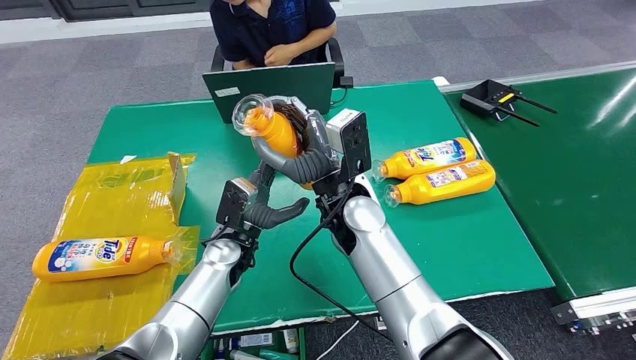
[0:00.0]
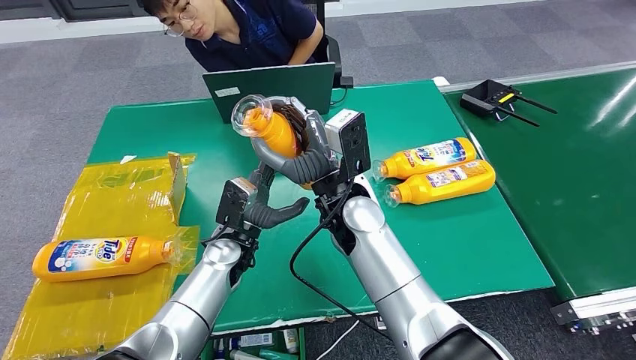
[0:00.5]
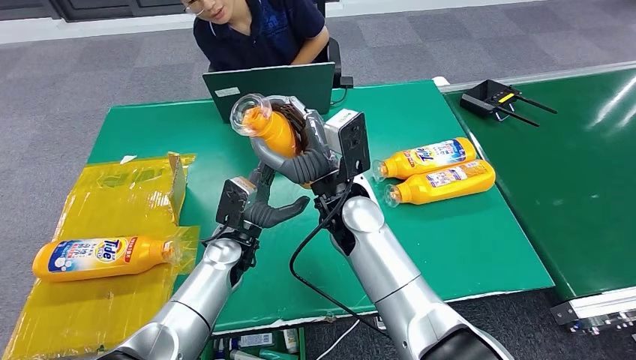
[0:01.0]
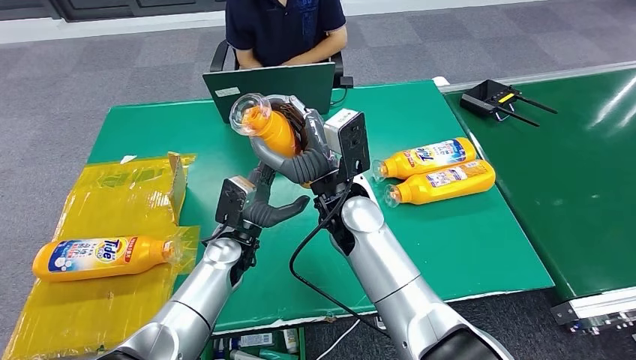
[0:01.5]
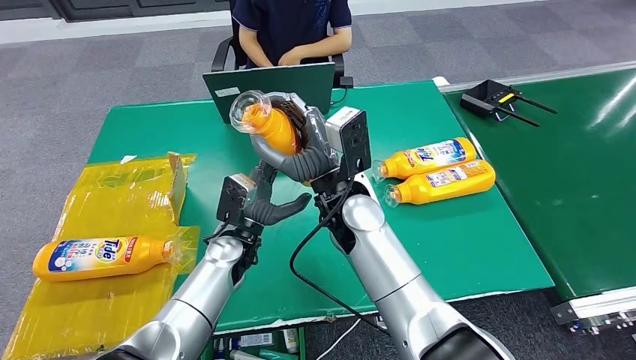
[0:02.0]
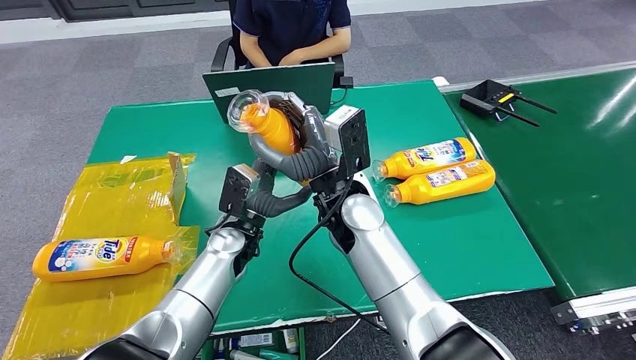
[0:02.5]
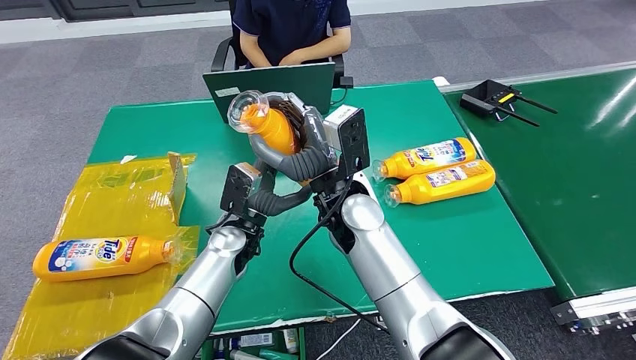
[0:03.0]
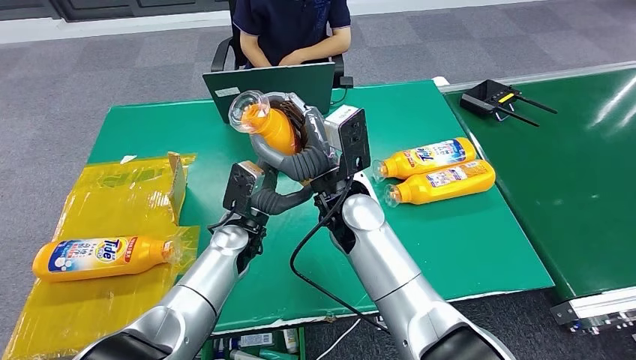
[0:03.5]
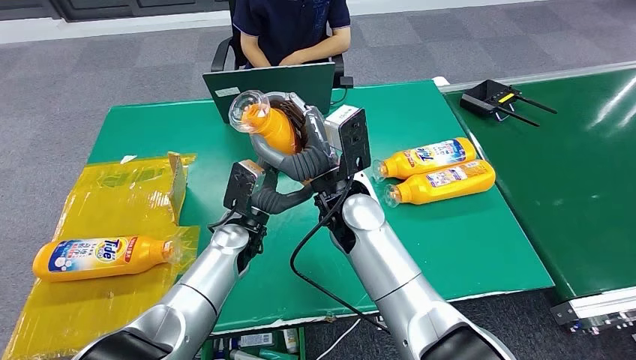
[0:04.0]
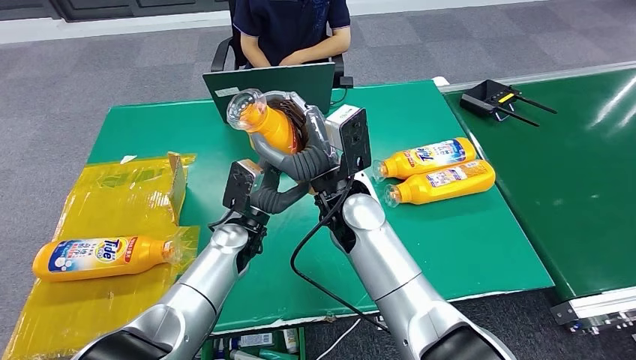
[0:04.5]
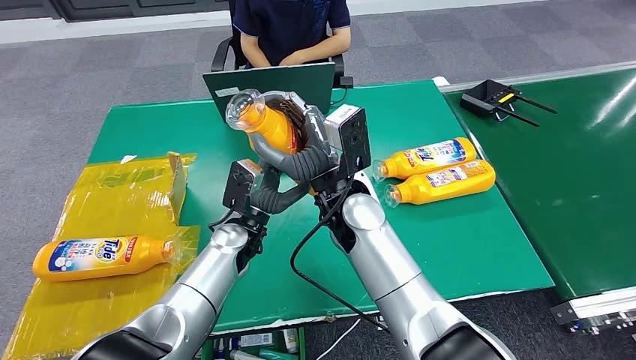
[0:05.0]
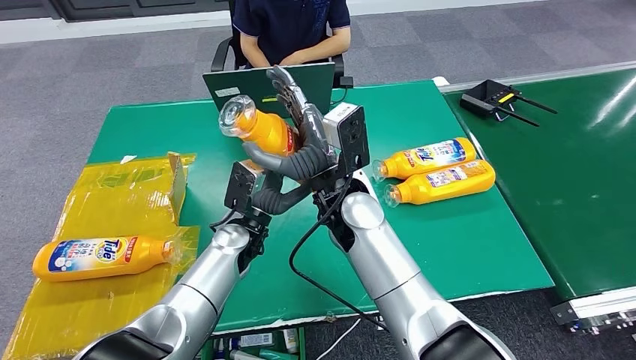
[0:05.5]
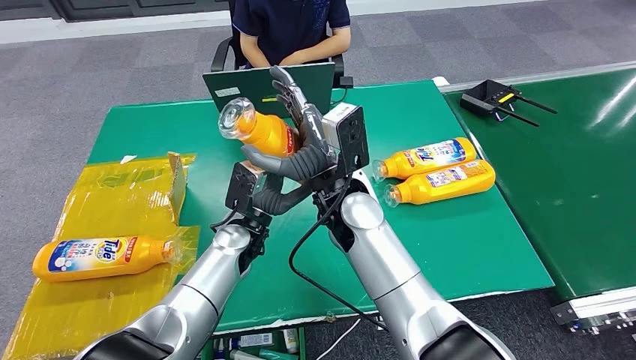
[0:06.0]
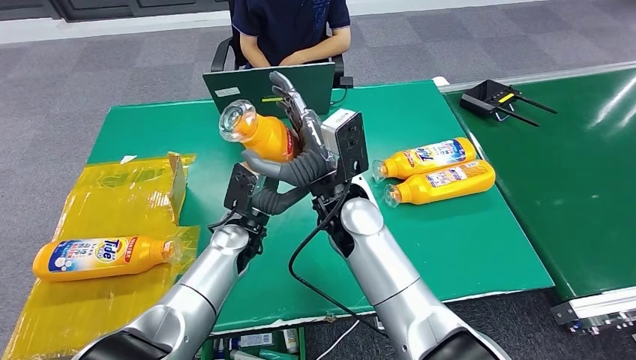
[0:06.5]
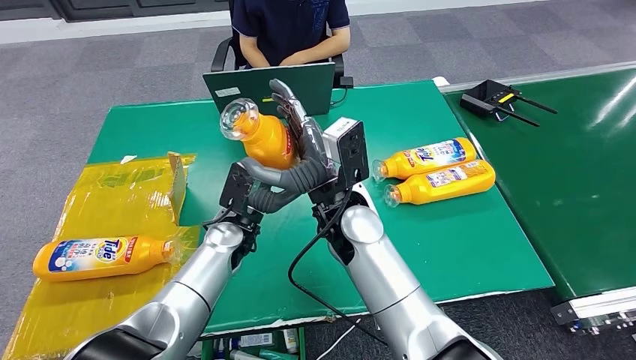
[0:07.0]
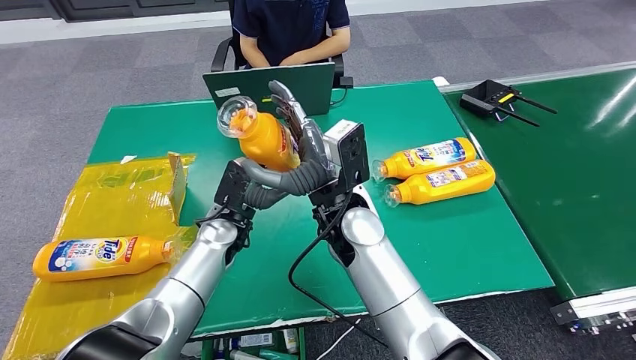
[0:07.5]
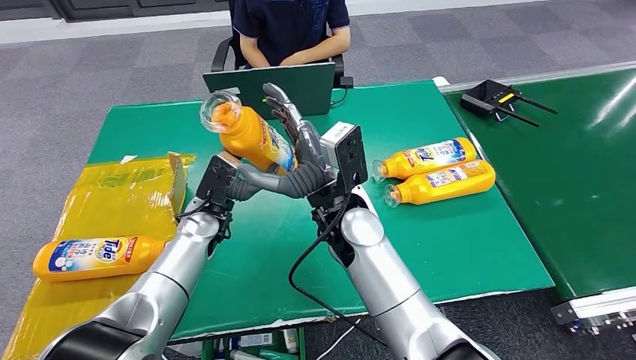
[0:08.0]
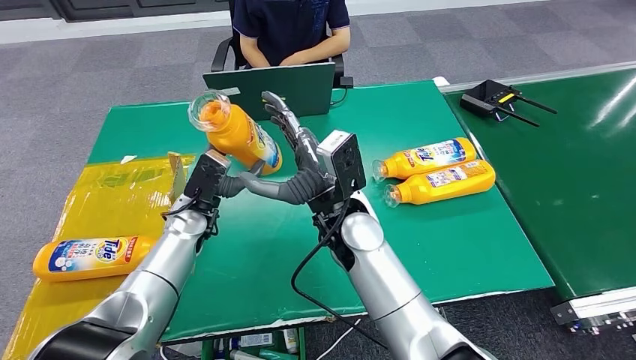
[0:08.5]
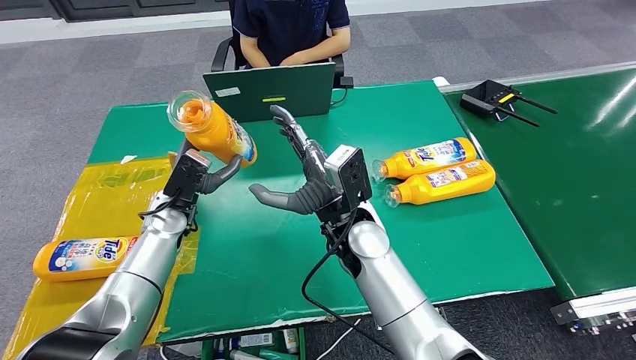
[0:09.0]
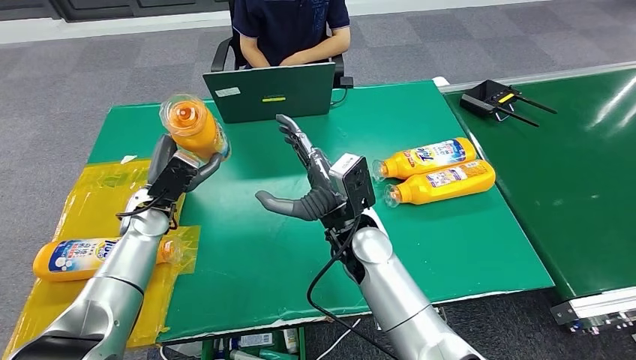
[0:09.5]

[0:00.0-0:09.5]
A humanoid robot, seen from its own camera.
0:00.0 to 0:02.0: The two hands keep their place.
0:02.0 to 0:04.0: The hands stay close to where they were, moving slightly.
0:04.0 to 0:05.5: Neither hand changes place.
0:05.5 to 0:07.5: The hands stay close to where they were, moving slightly.
0:07.5 to 0:09.5: The left hand heads to the left, covering some 15 cm.

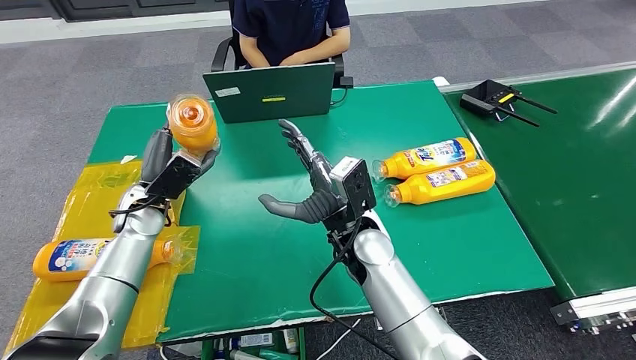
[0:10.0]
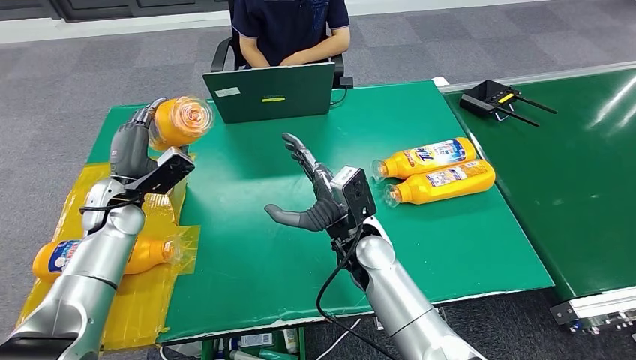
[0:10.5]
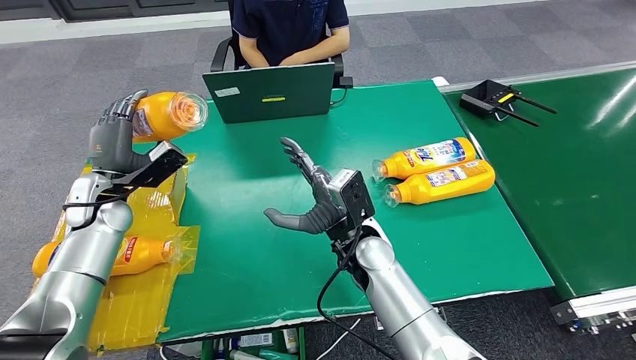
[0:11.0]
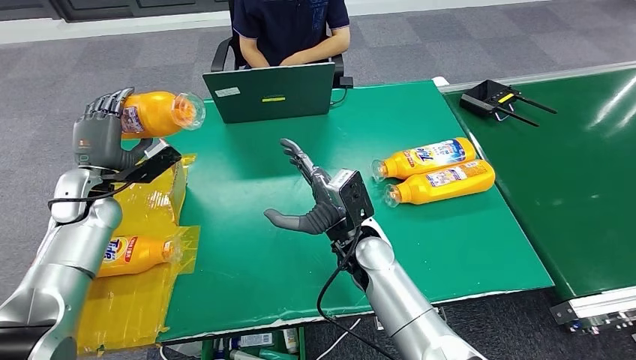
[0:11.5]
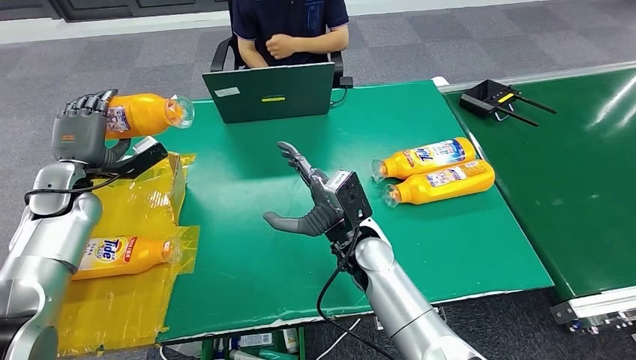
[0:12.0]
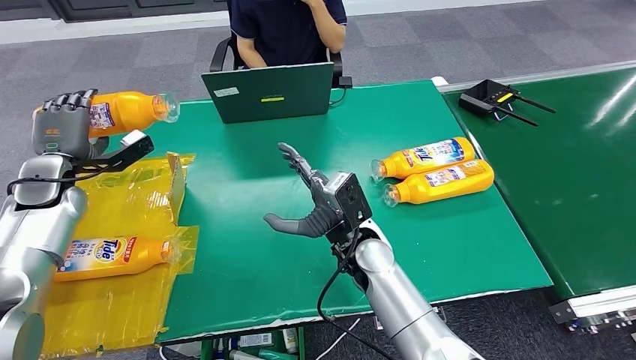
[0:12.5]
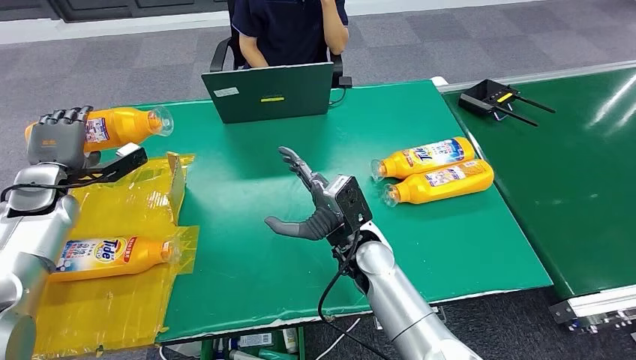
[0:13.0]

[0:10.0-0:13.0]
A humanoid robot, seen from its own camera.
Step, 0:10.0 to 0:13.0: Turn the bottle to the front side.
0:10.0 to 0:11.5: The left hand is displaced to the left by about 10 cm.
0:11.5 to 0:13.0: The left hand moves to the left, roughly 10 cm.

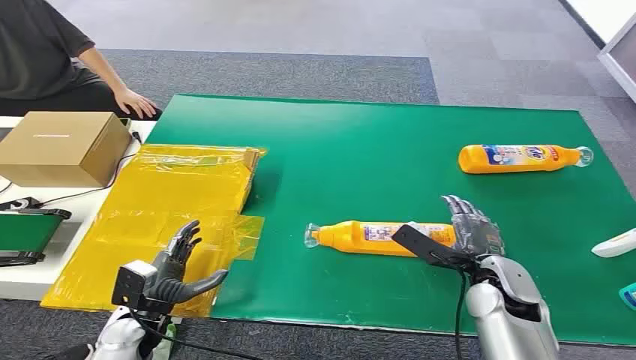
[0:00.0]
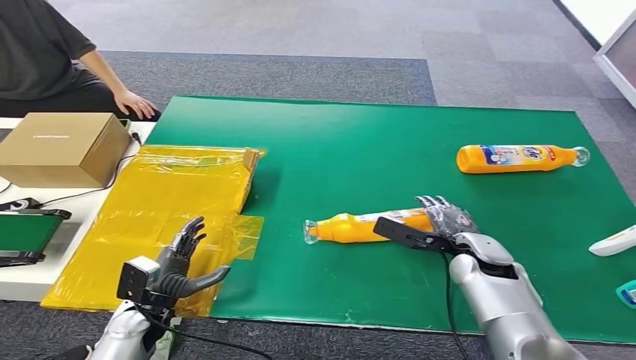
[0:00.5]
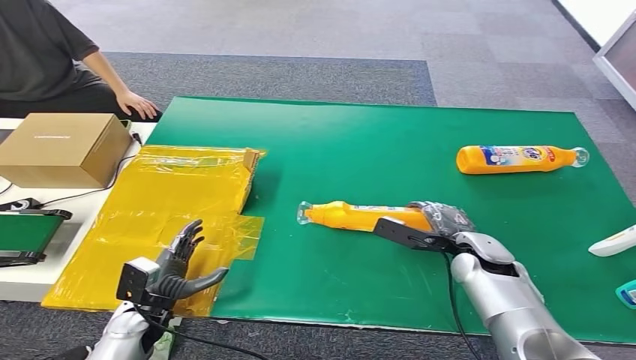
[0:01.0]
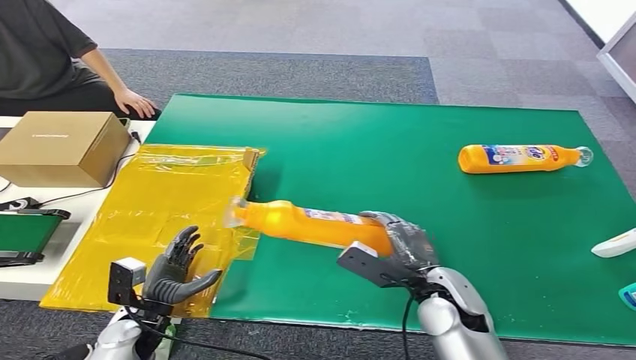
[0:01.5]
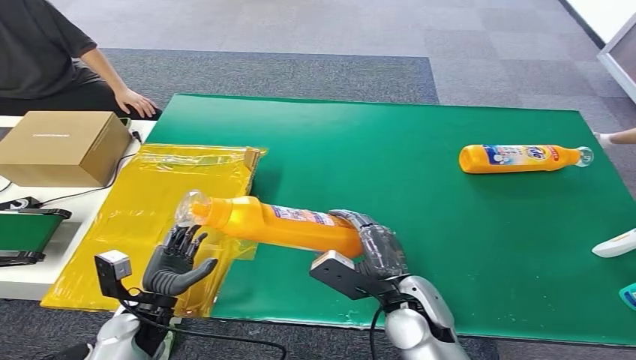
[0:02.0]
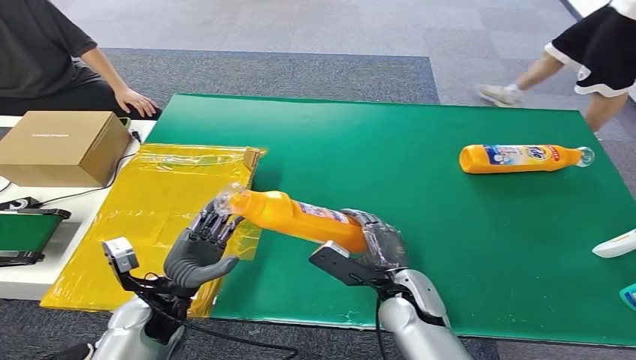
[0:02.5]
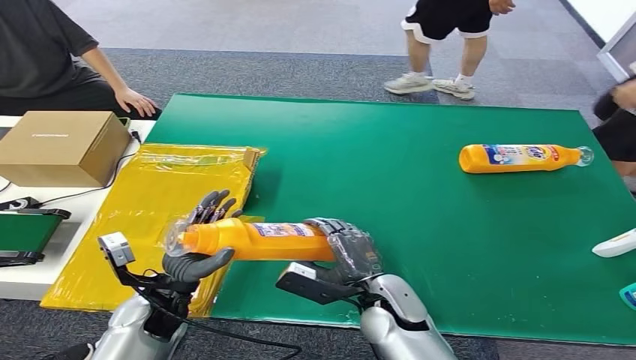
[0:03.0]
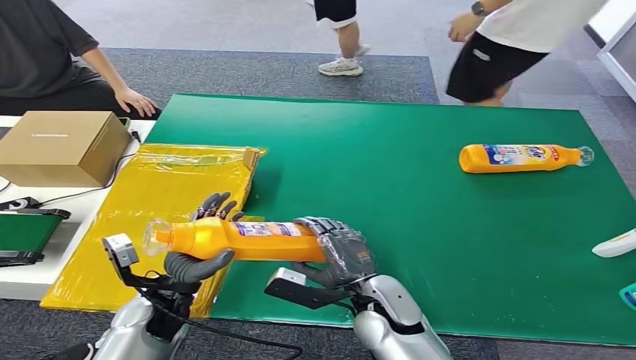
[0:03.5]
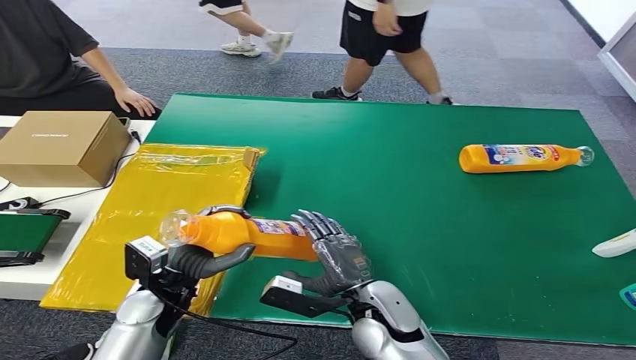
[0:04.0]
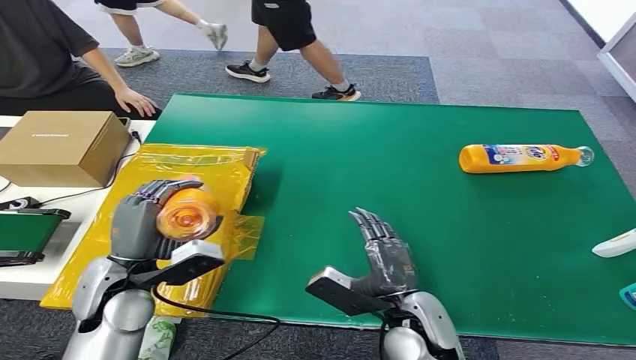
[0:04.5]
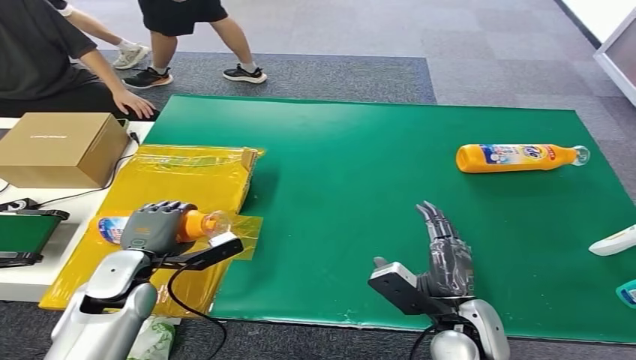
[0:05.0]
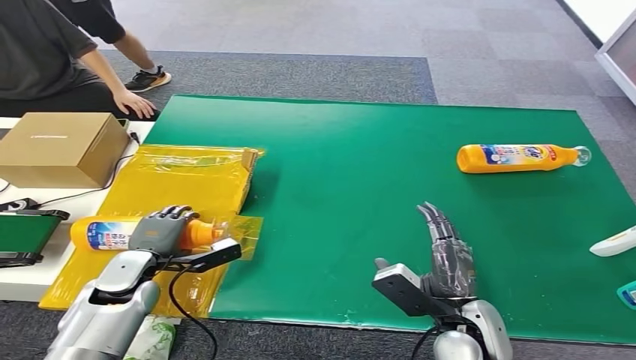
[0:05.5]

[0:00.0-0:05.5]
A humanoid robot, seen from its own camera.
Step, 0:00.0 to 0:01.5: Pick up the bottle from the table.
Step, 0:02.0 to 0:05.5: Turn the bottle to the front side.
0:02.0 to 0:03.5: The left hand moves upward, roughly 5 cm.
